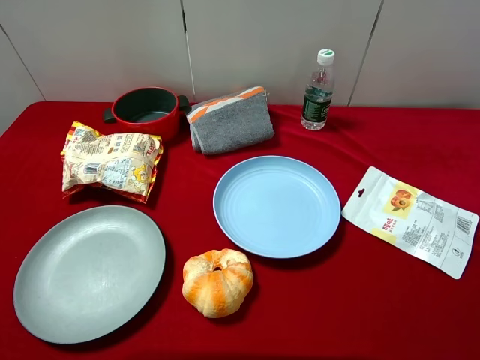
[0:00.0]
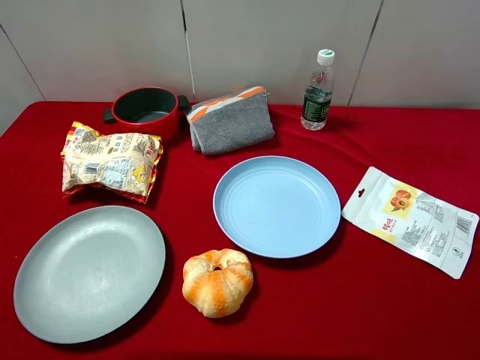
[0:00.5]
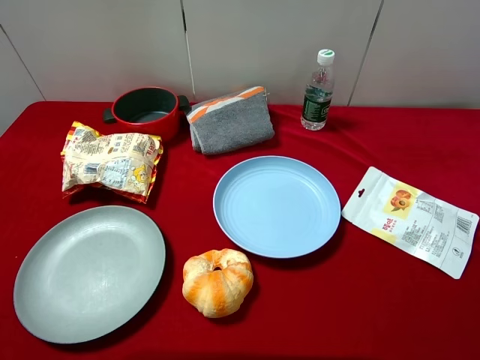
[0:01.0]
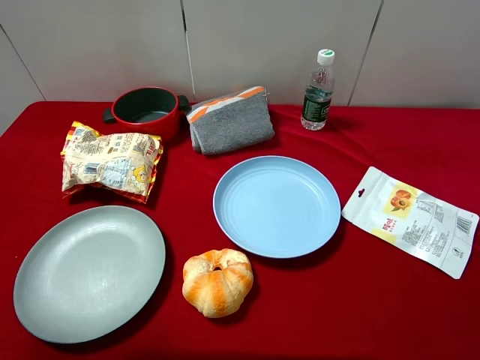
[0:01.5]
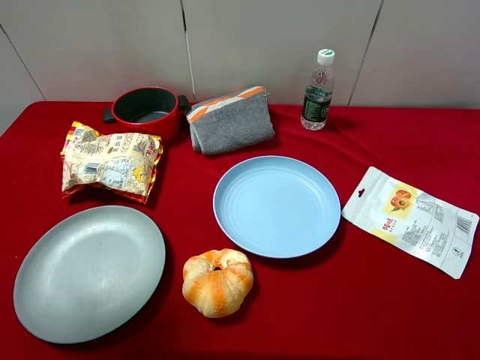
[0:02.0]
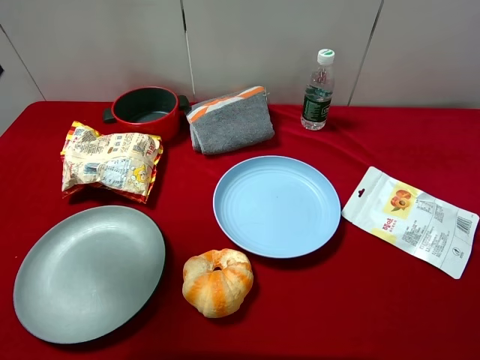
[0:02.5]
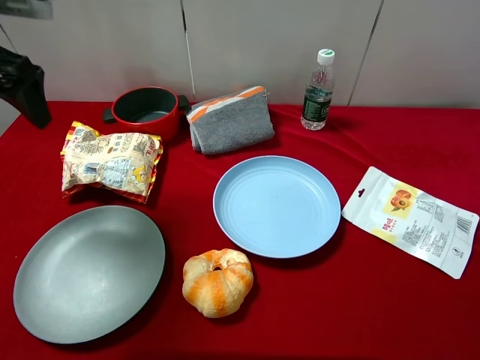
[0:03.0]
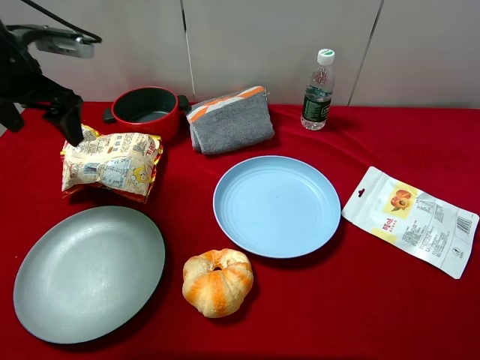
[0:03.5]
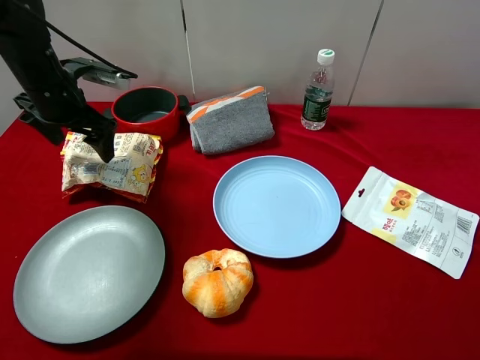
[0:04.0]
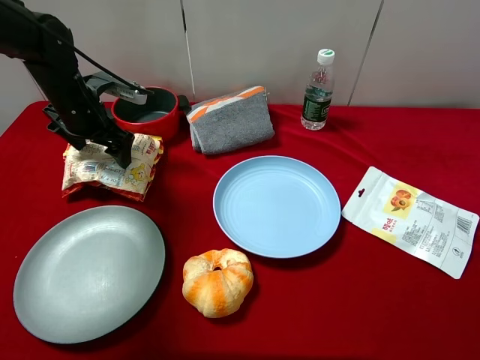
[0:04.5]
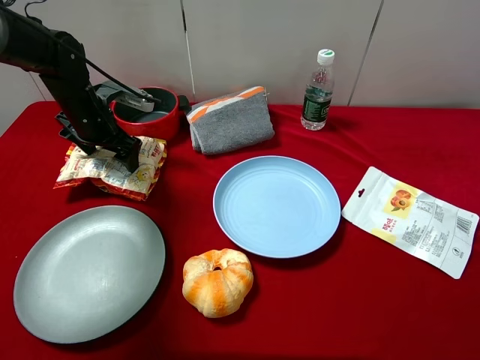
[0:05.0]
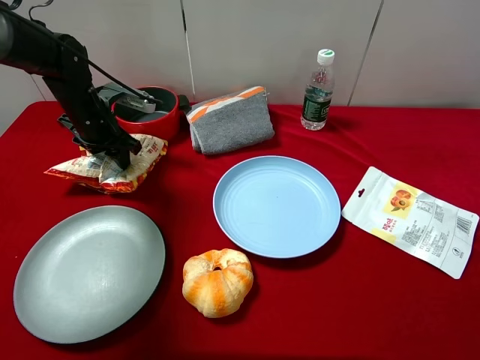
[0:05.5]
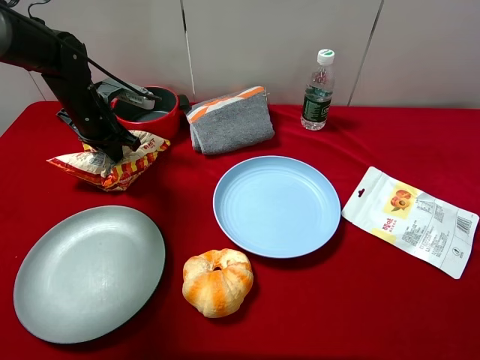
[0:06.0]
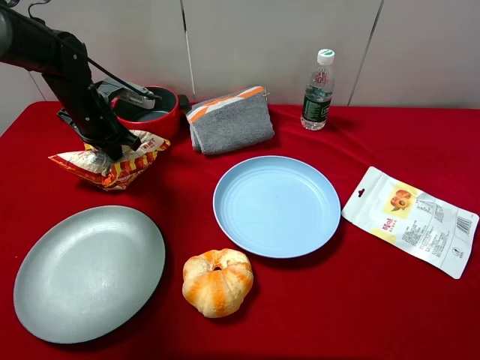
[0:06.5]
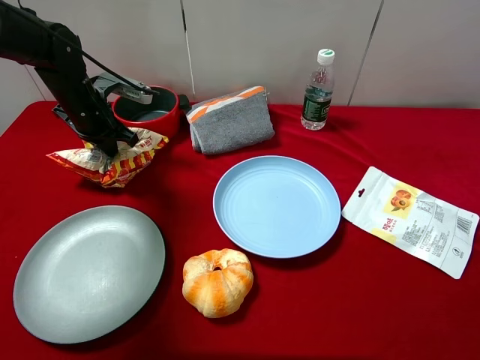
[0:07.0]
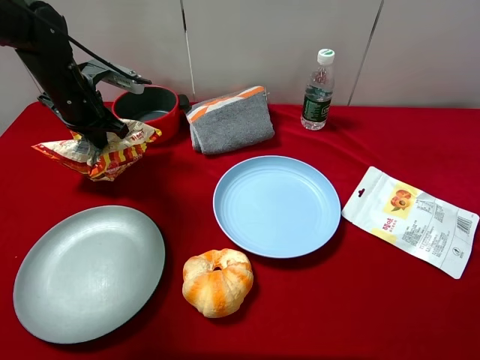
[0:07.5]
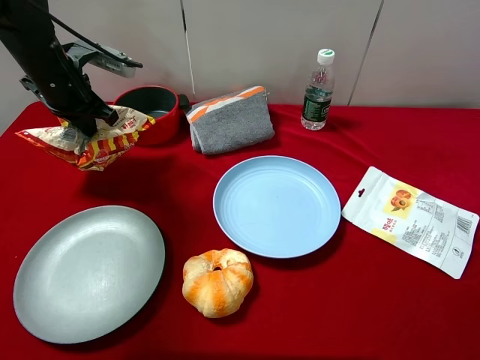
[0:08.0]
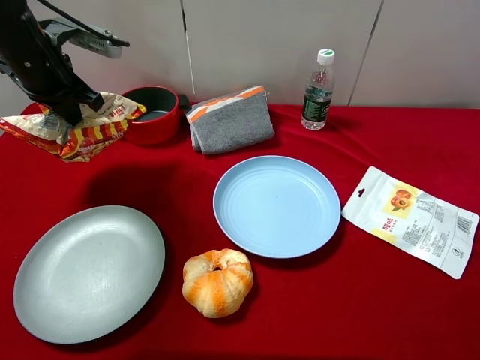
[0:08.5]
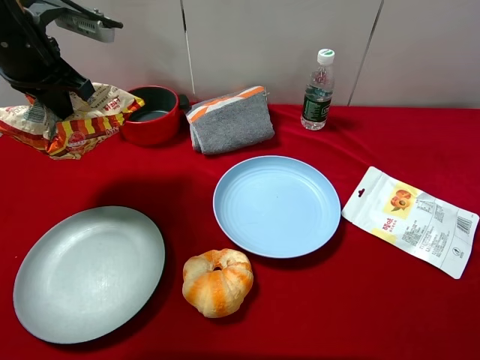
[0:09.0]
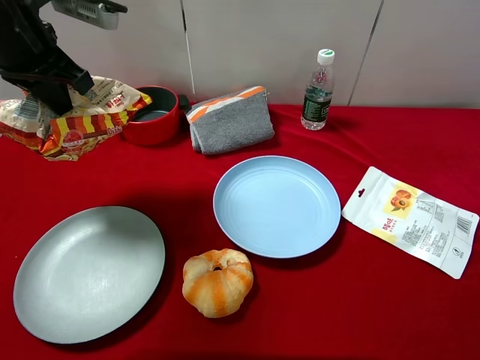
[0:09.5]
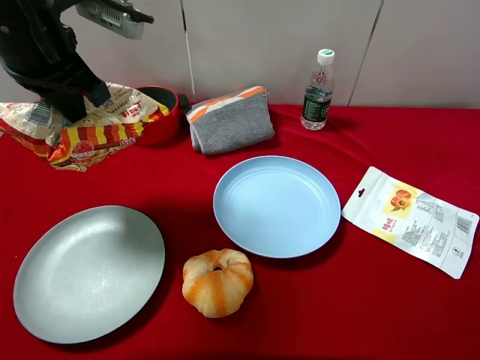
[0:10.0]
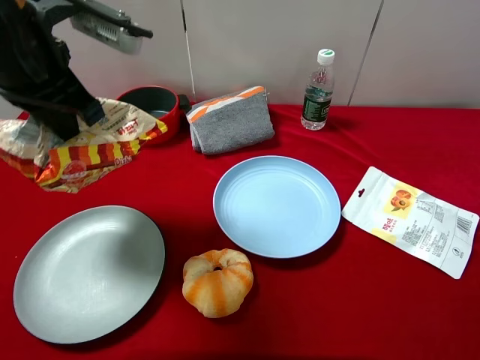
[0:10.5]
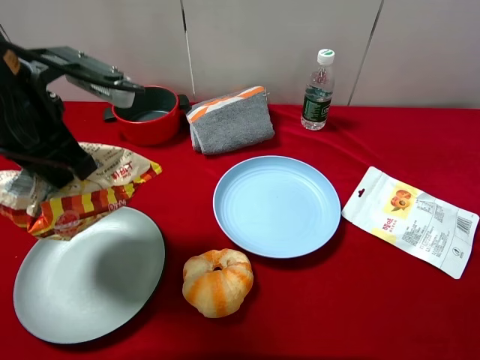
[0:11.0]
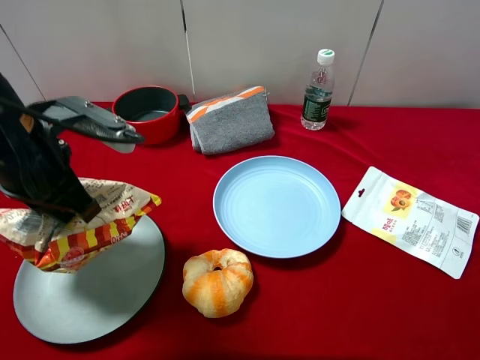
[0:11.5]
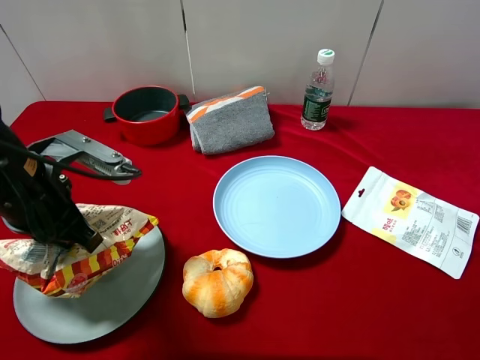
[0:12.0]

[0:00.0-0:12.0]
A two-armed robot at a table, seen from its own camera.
Task of the whole recording: pick up an item with a gripper and place it in a random container on the desktop.
0:00.0 to 0:02.0: The left gripper is displaced forward and upward by some 20 cm.
0:02.0 to 0:04.0: The left gripper is displaced forward and downward by some 30 cm.
0:04.0 to 0:06.0: The left gripper is displaced downward by roughly 5 cm, and closes.
0:06.0 to 0:08.0: The left gripper shifts some 10 cm upward.
0:08.0 to 0:10.0: The left gripper heads upward, backward and to the right, covering approximately 15 cm.
0:10.0 to 0:12.0: The left gripper travels downward and backward by some 15 cm.

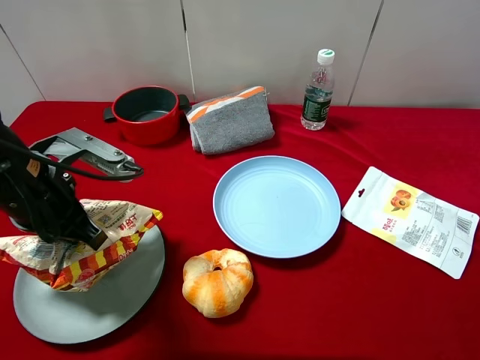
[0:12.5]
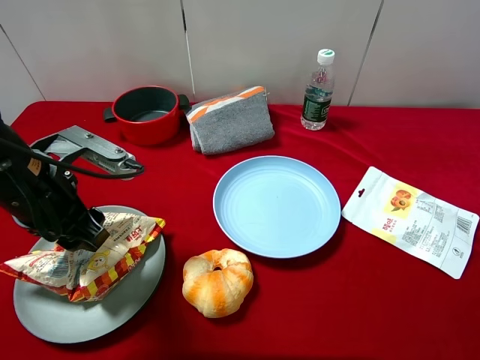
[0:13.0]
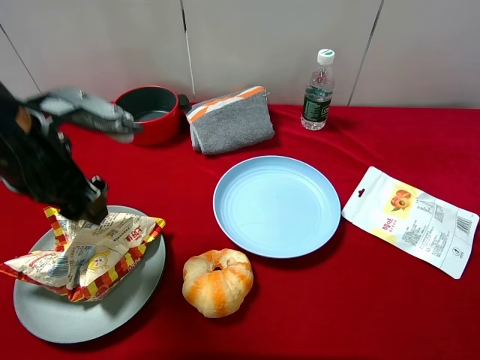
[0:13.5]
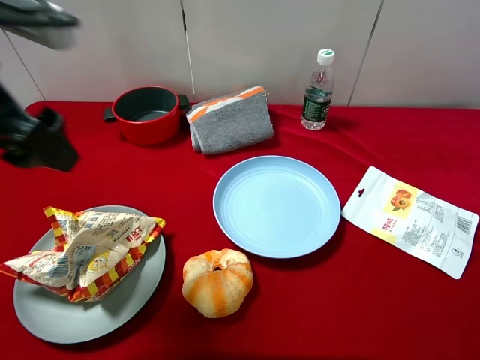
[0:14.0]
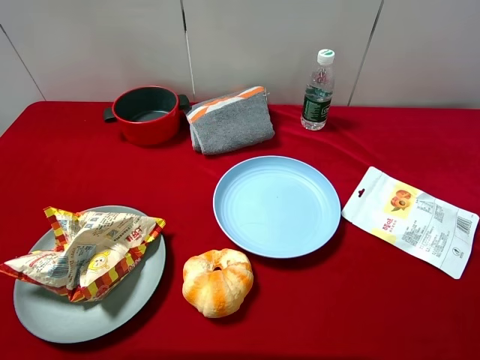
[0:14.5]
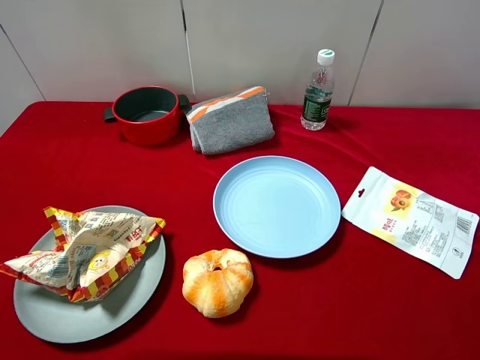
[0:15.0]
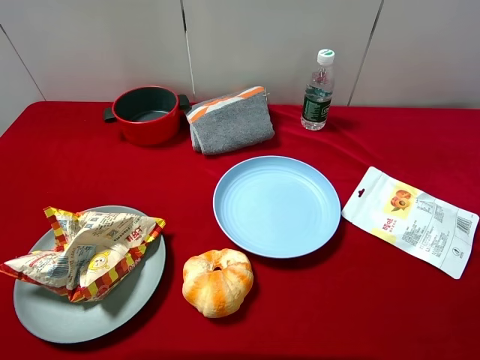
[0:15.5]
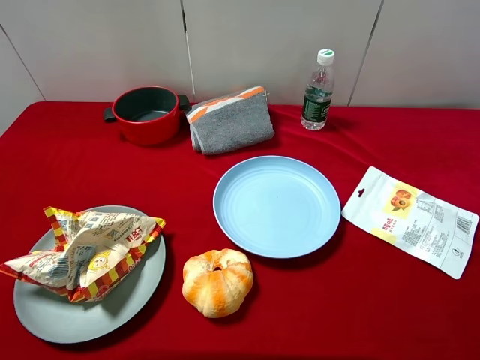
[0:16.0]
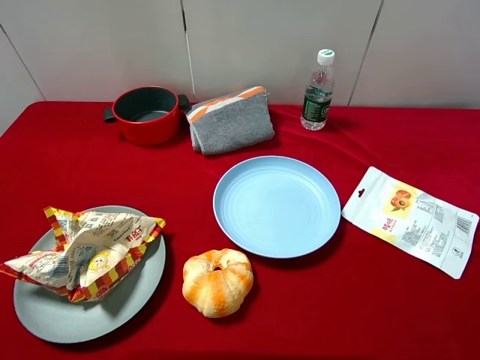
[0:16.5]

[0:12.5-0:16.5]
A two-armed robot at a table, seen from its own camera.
Task of the whole recording: pick up an item with a gripper and place it in a random container on the desktop.
0:12.5 to 0:14.5: The left gripper shifts some 25 cm upward, backward and to the left, and opens up.
